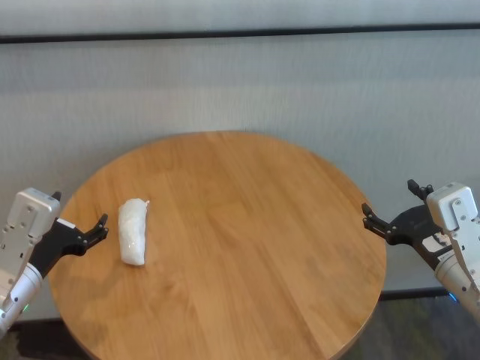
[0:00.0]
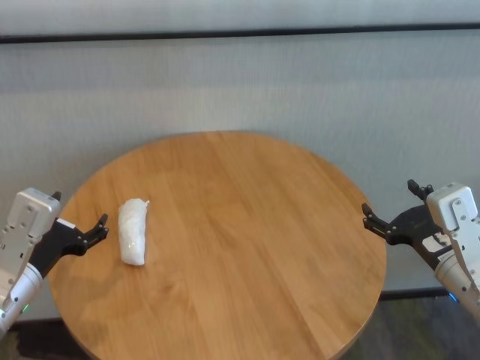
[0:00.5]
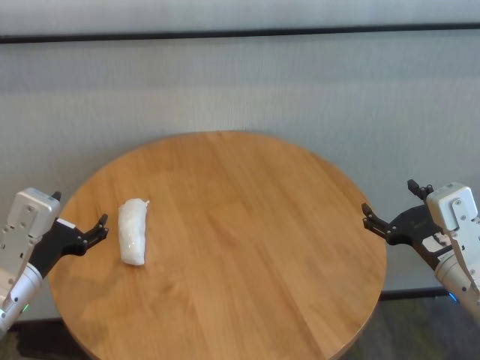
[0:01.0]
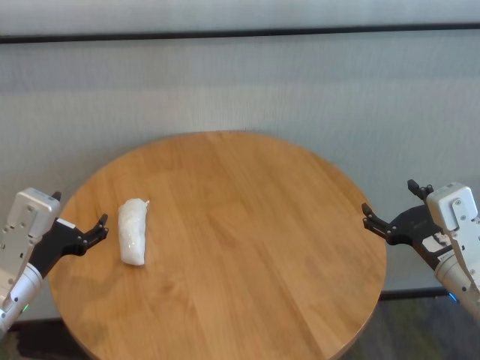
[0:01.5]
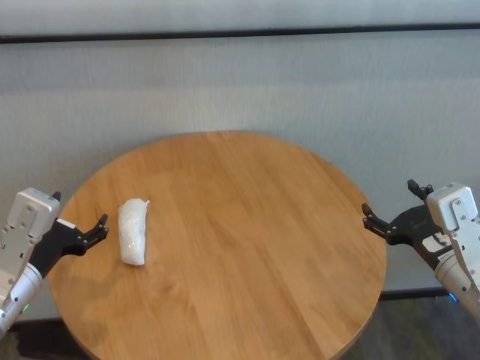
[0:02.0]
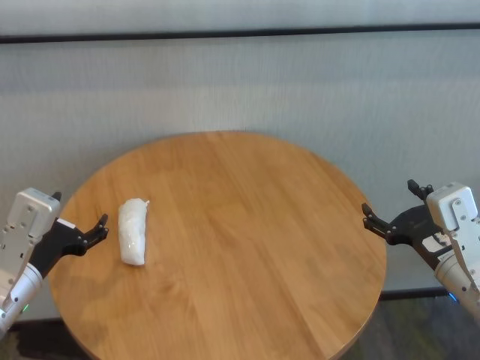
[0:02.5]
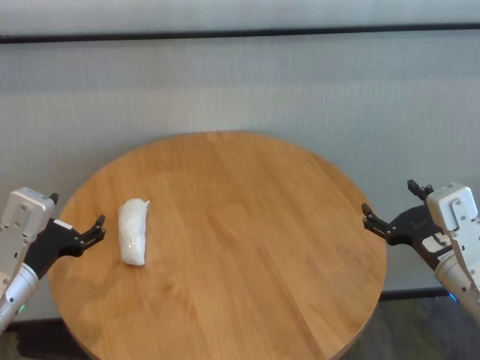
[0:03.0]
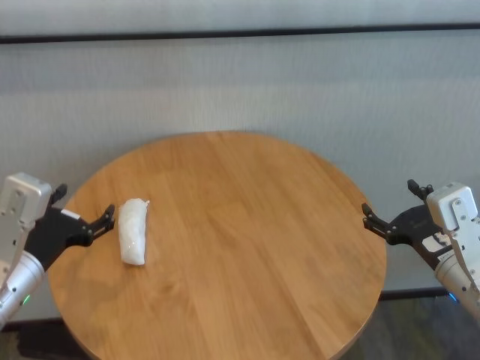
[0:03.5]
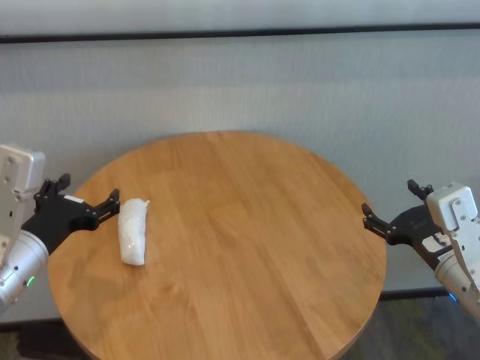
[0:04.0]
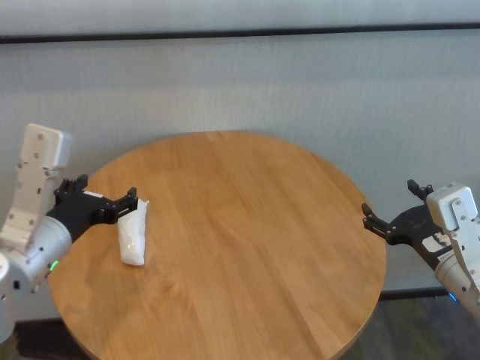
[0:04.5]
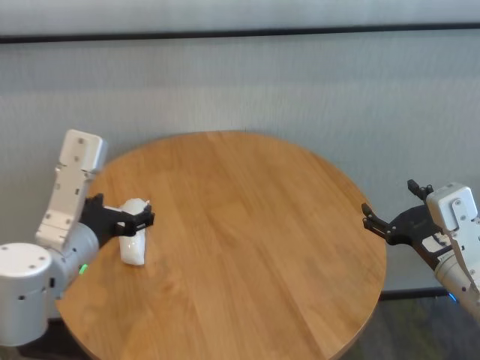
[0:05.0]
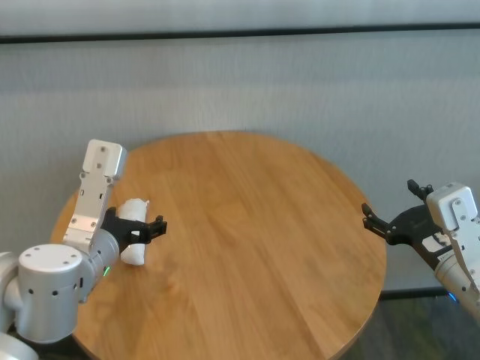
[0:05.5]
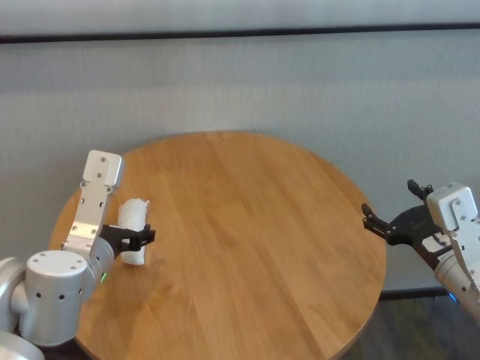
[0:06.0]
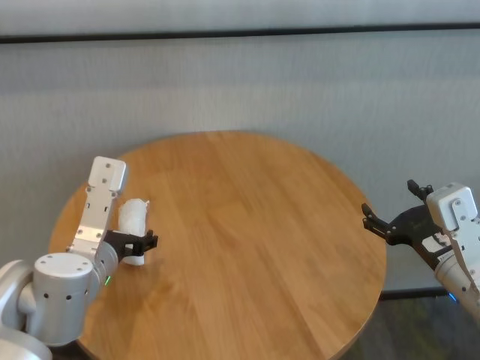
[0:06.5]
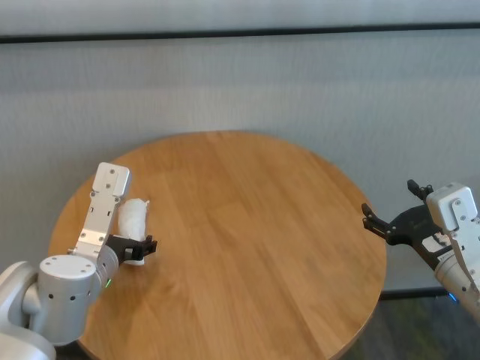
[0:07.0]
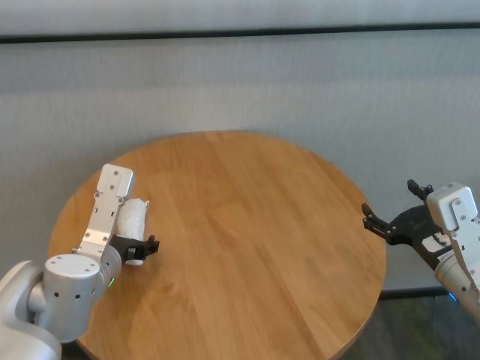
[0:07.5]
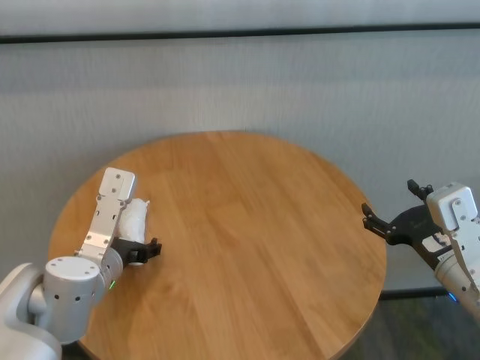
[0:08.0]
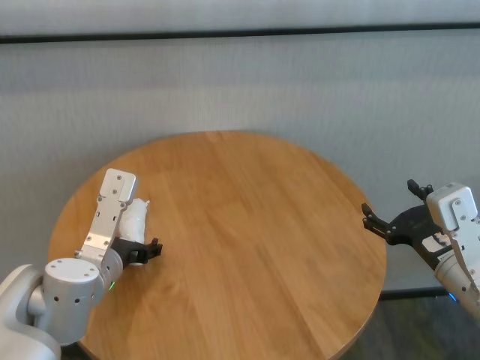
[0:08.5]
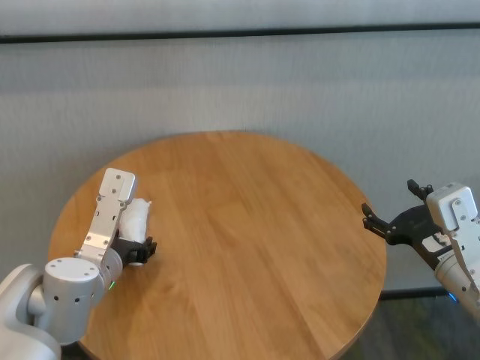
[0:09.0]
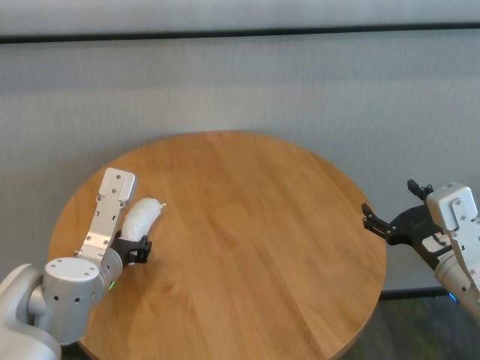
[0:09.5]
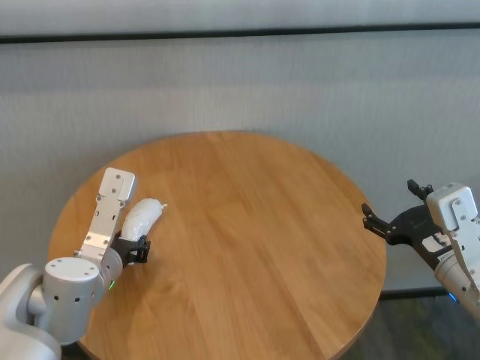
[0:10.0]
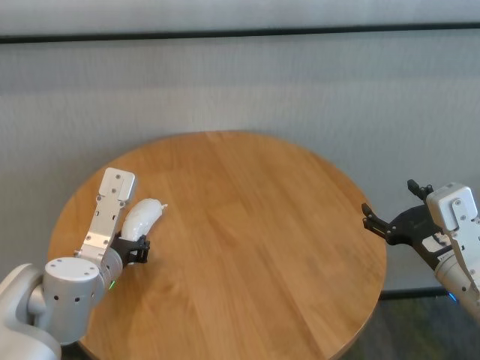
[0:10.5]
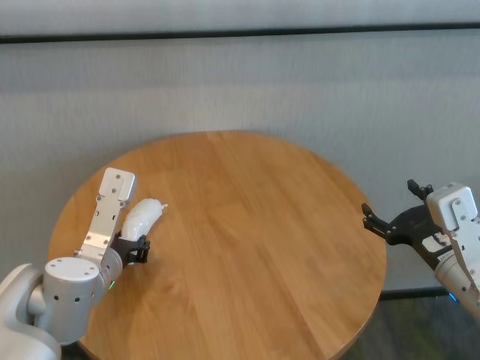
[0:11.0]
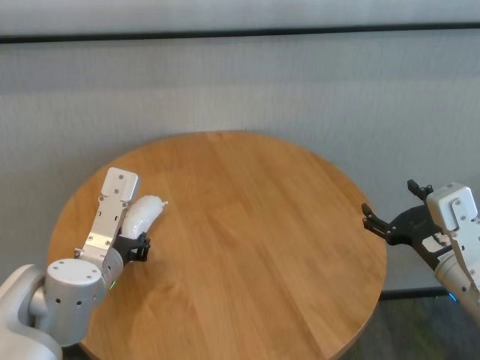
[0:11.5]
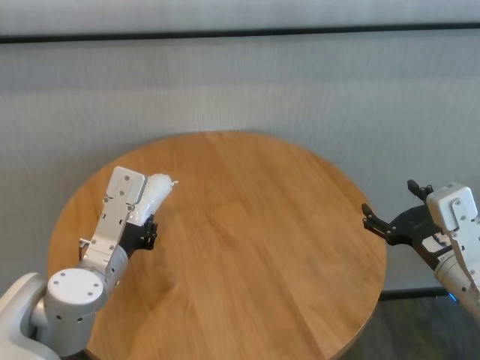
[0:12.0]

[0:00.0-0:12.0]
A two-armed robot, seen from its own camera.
Task of the whole recording: One hand took the sandbag from the other hand and placed it on the table.
Step, 0:00.0 to 0:10.0: Grasp the paper ball with left gripper.

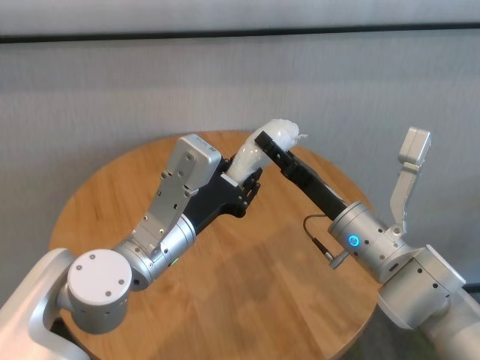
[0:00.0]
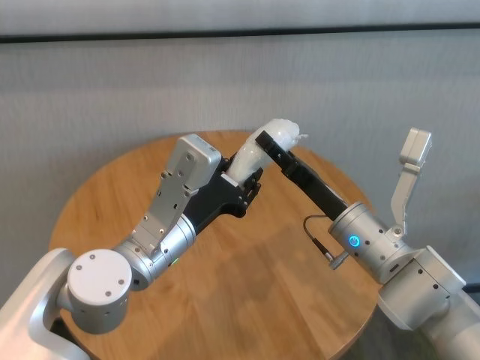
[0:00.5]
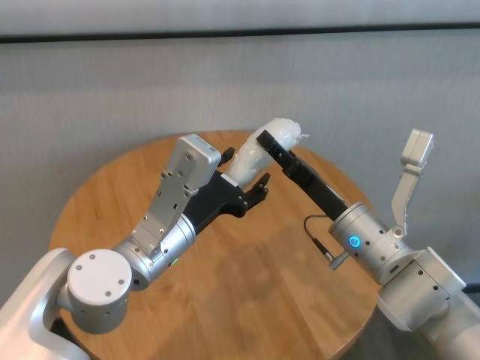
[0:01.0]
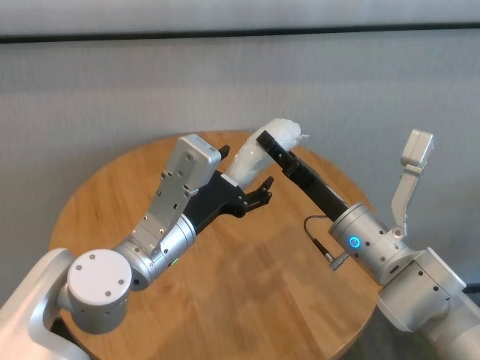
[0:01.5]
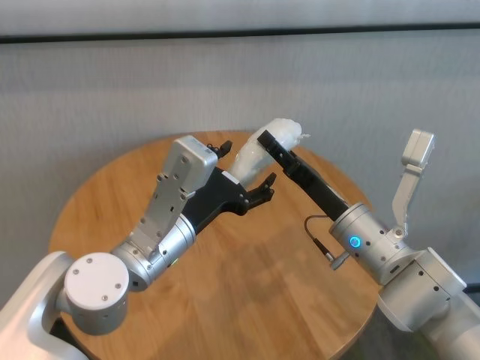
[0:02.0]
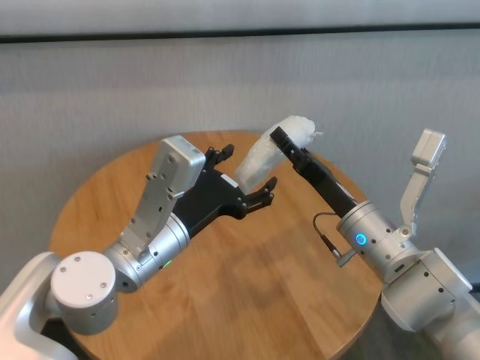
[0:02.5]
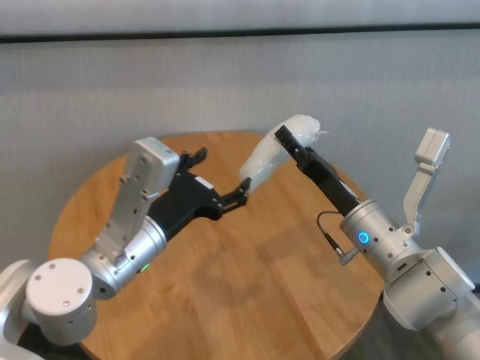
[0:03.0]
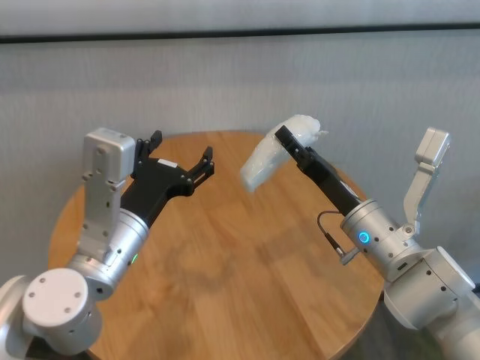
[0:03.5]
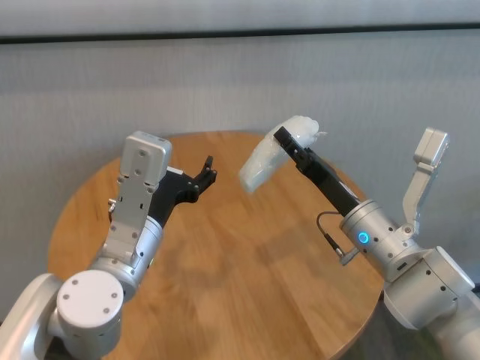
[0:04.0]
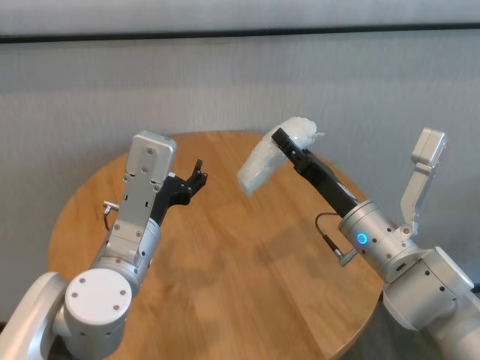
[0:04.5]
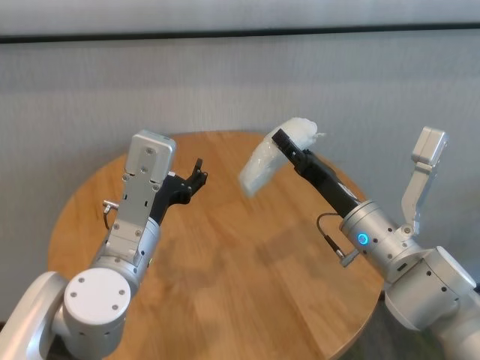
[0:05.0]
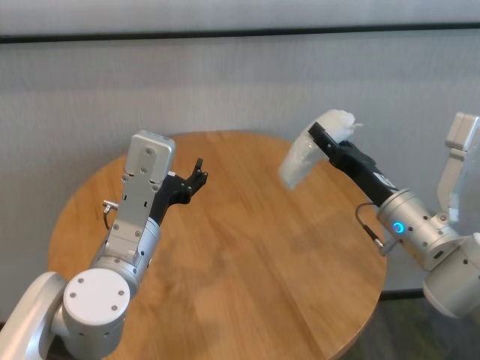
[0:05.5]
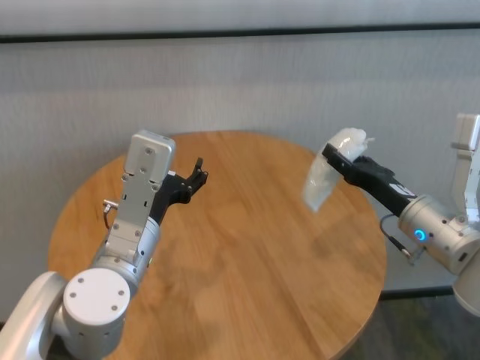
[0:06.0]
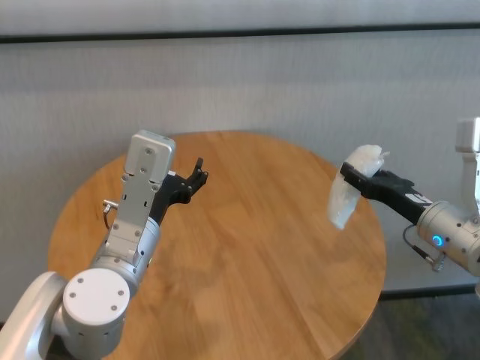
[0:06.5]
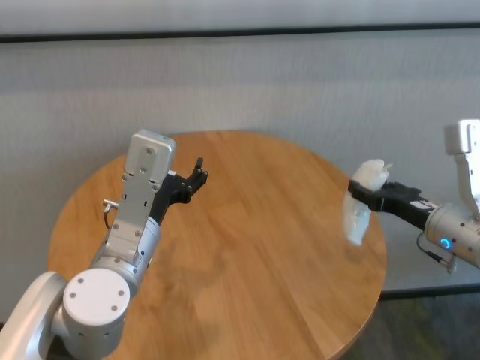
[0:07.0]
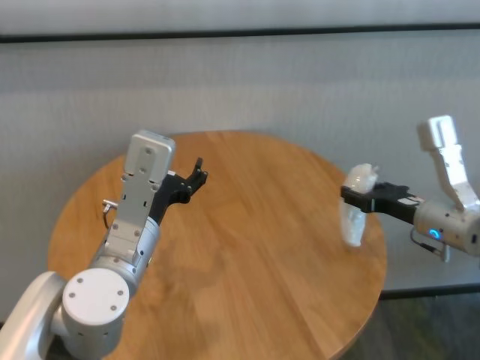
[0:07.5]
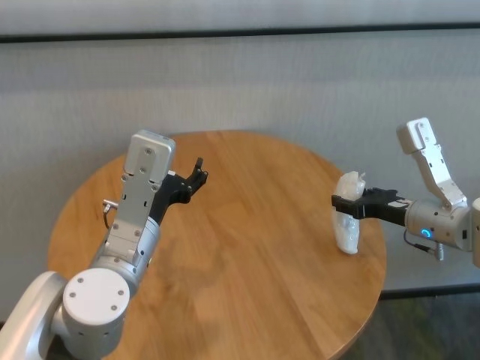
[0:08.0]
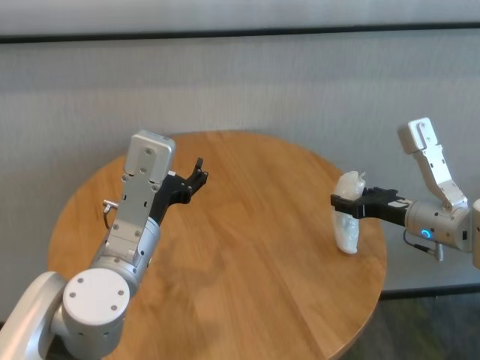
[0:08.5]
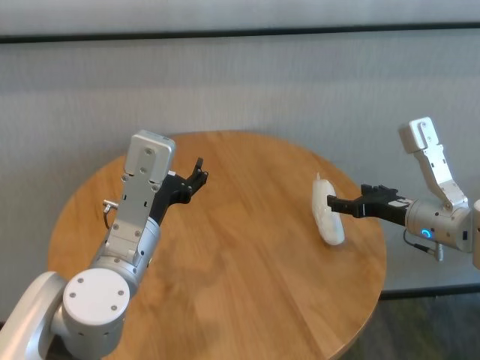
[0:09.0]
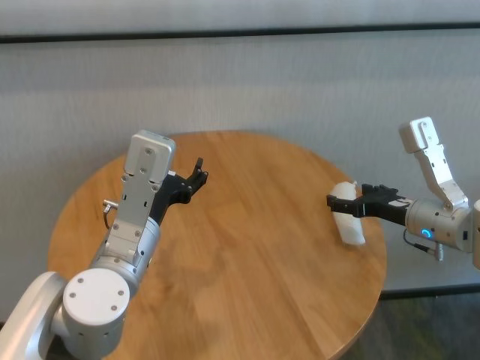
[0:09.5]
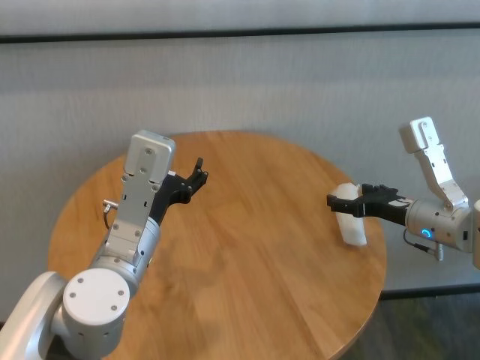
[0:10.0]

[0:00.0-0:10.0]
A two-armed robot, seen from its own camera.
Task of the whole recording: One hand took the sandbag from the other hand and placed it on the table.
Step, 0:00.0 to 0:03.0: Pass the paper ball to the right gripper.
Step, 0:03.5 to 0:09.0: Place the paper ball on the table with right gripper.
